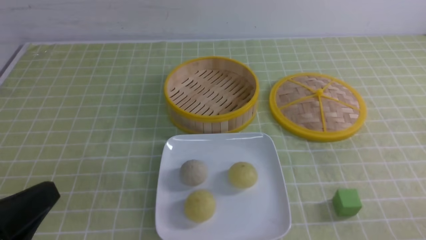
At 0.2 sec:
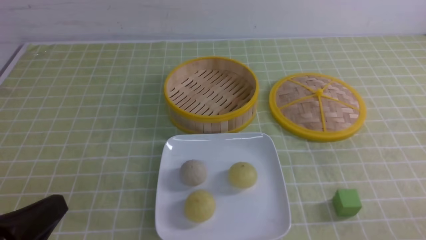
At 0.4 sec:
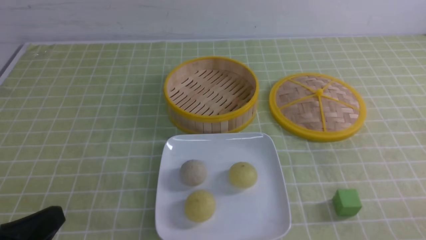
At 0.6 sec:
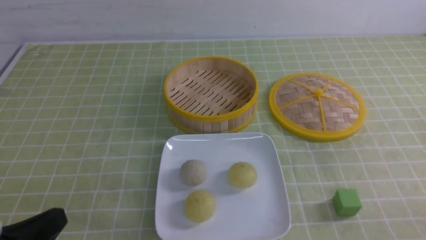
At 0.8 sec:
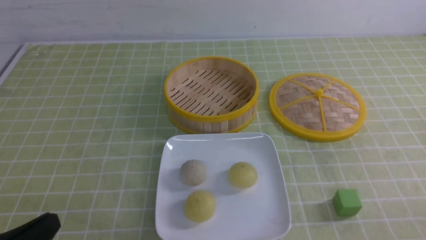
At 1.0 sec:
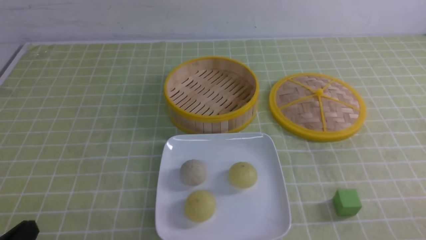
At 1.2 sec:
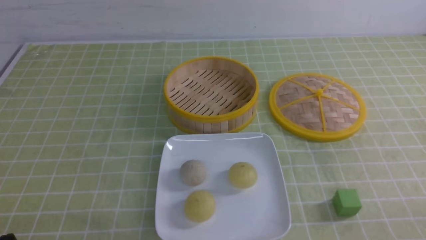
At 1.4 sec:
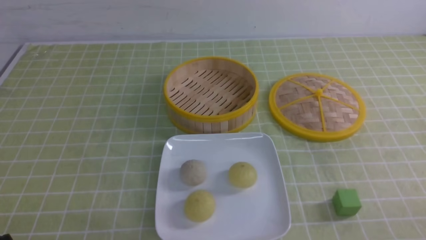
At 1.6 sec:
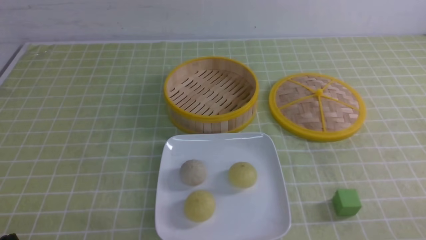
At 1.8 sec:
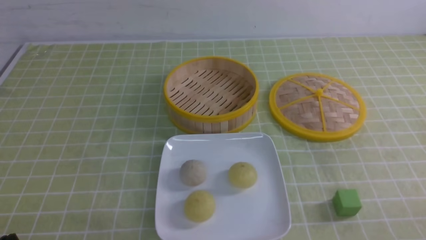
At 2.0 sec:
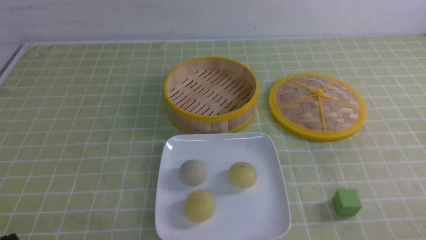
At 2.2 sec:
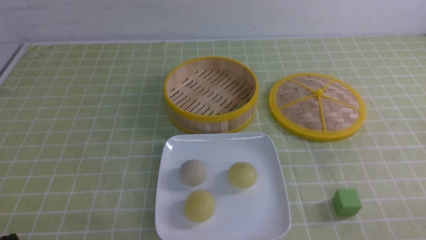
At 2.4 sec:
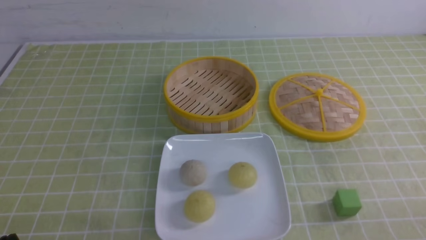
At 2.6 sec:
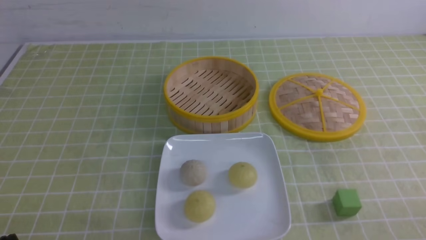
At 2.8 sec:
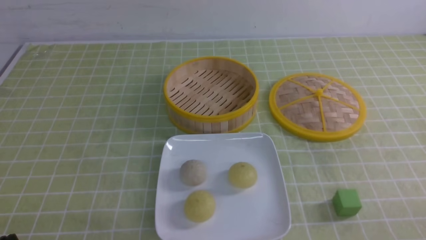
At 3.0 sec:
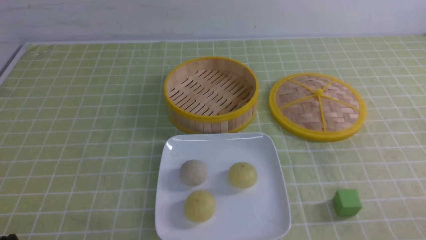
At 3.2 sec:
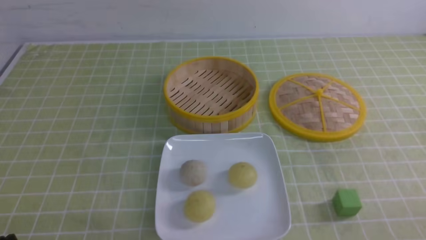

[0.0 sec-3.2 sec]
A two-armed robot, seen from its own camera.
0.0 sec to 1.6 sec: The left gripper is displaced downward by approximately 10 cm.
1.6 sec to 3.2 sec: Both grippers stay put.
